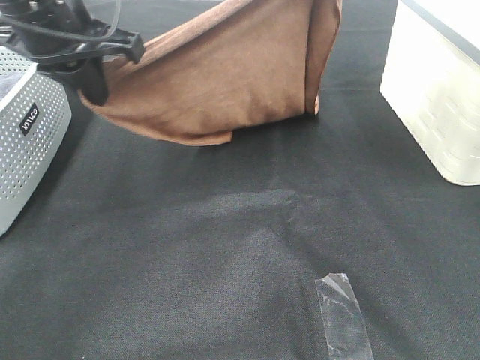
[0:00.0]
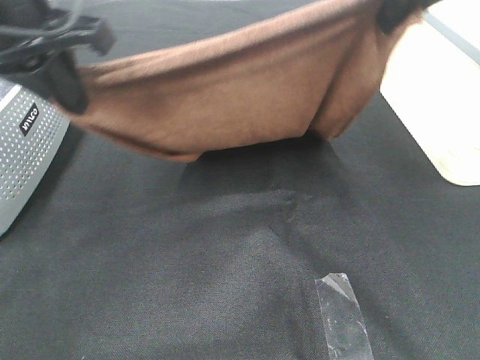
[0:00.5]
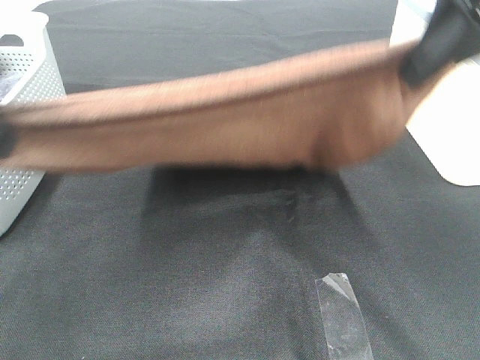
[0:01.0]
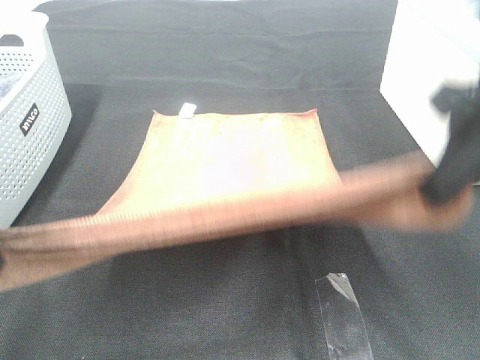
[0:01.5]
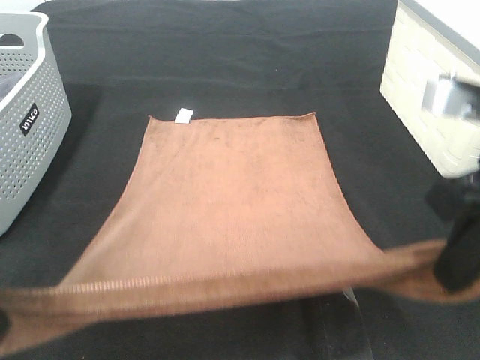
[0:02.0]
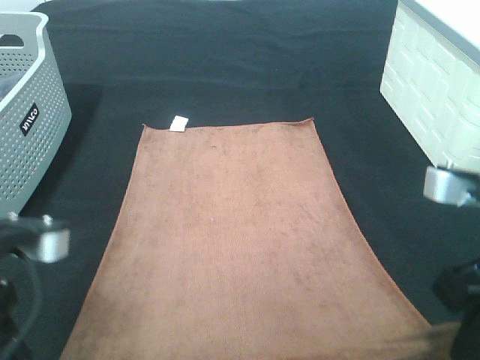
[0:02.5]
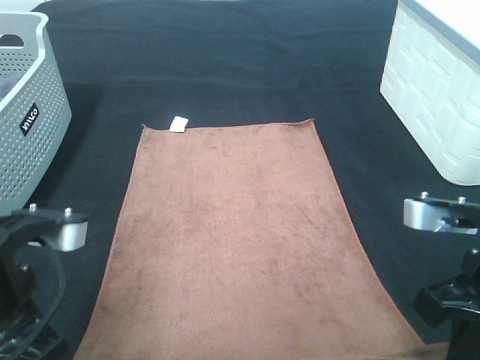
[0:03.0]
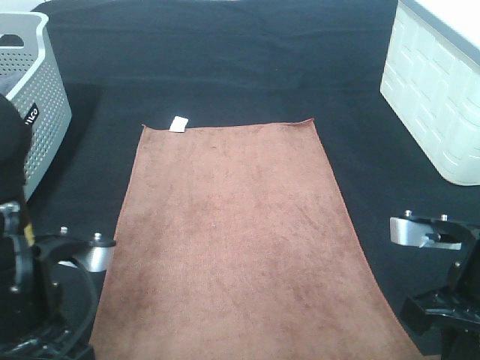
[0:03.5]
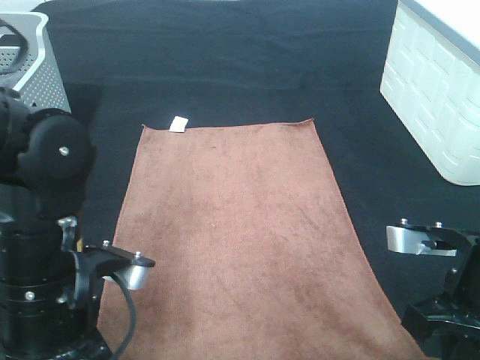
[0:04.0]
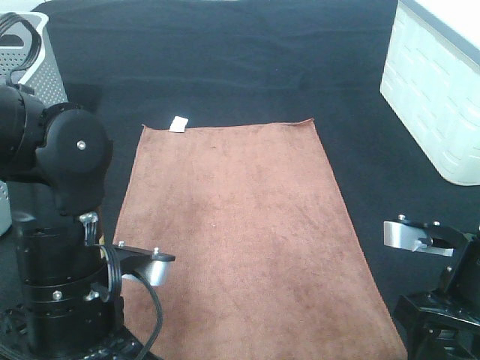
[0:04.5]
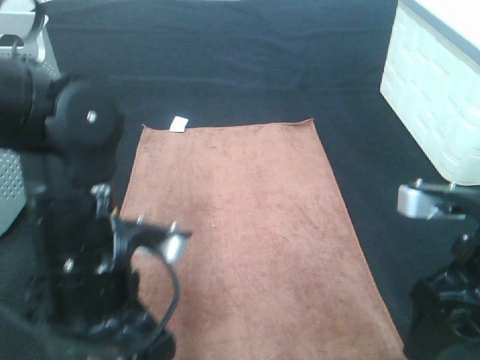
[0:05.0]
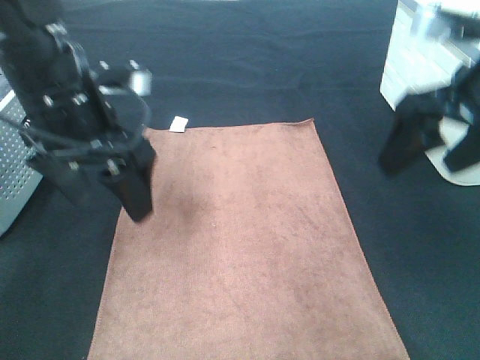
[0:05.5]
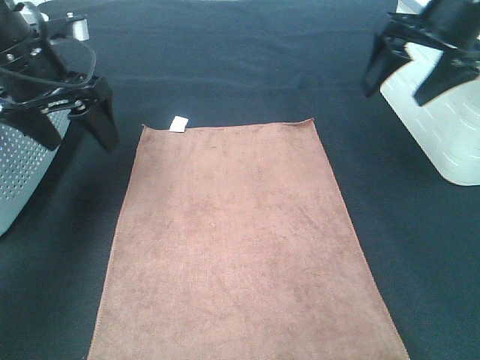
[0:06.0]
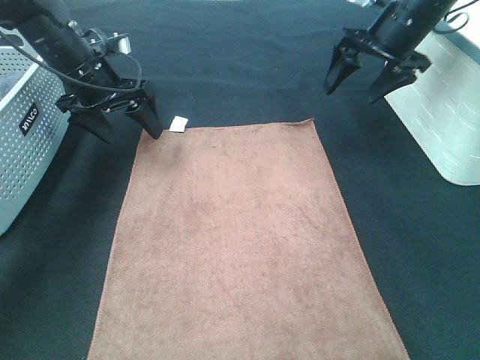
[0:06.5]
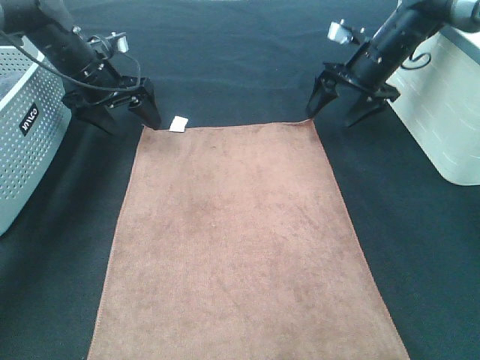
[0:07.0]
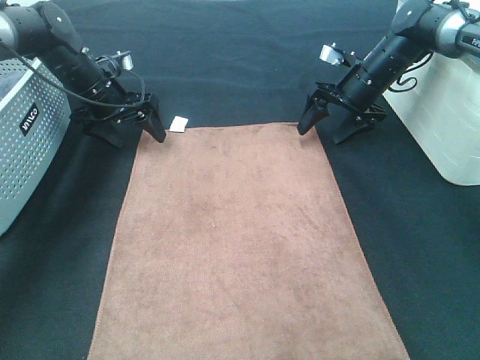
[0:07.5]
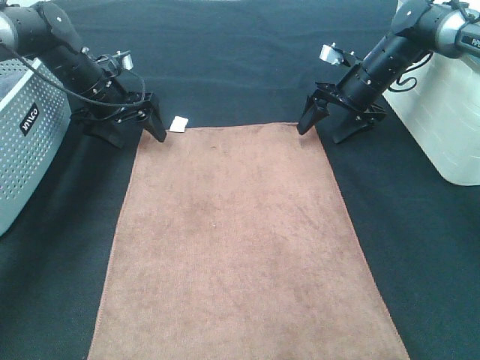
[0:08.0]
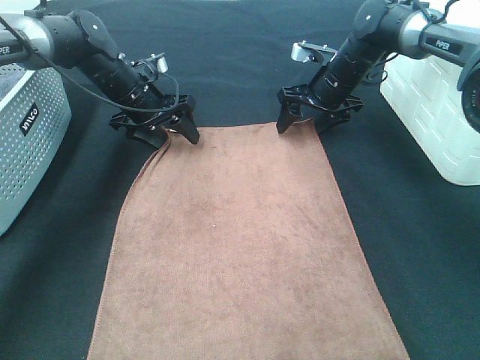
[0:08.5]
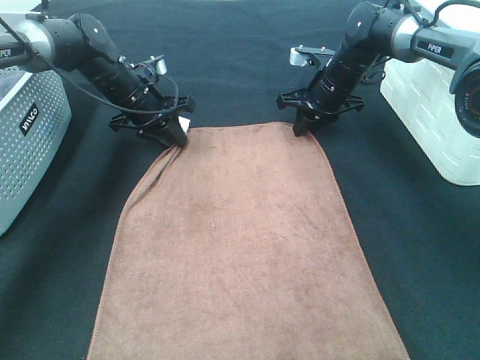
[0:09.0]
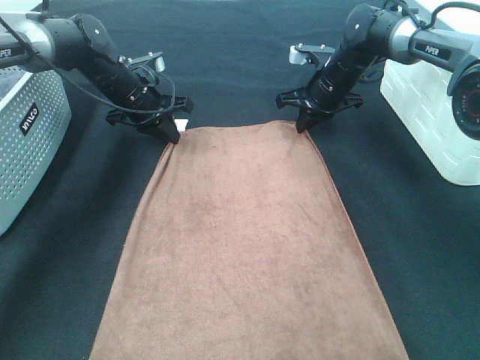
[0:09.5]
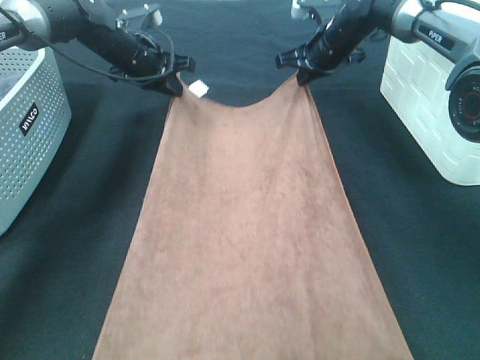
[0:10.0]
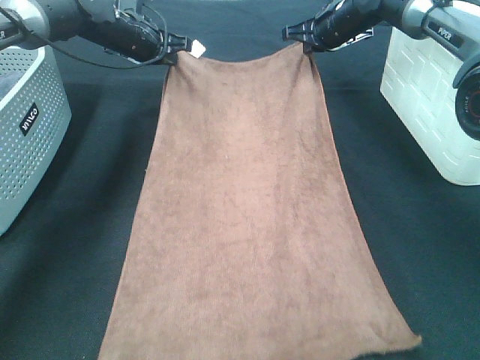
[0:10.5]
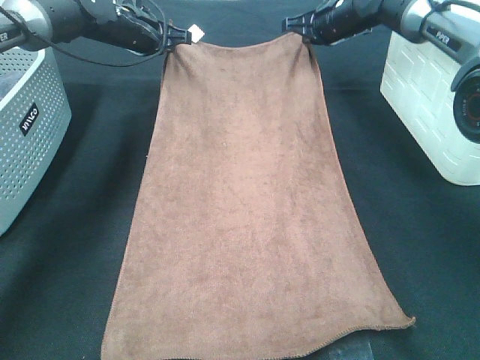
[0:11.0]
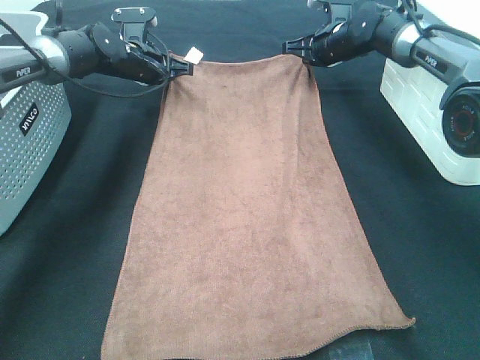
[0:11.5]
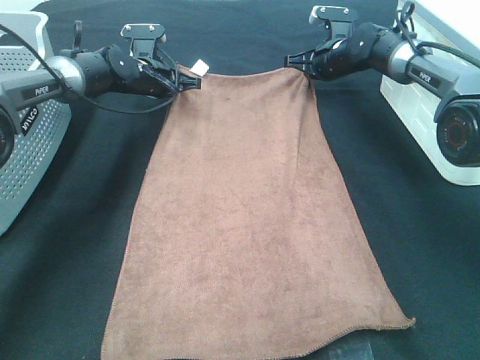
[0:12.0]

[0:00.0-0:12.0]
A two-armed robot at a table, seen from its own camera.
Task of the whole recording: Remove the towel and place it.
Step, 0:00.5 to 0:06.5: Left hand:adjust the brown towel.
Step, 0:00.5 to 0:06.5: Right hand:adjust the brown towel.
0:00.0 to 0:02.0: The left gripper travels backward by roughly 20 cm. Meanwhile the right gripper shifts some 25 cm backward and downward.
0:02.0 to 0:04.0: The right gripper goes roughly 10 cm downward. Meanwhile the left gripper is displaced downward and to the right by about 15 cm.
0:04.0 to 0:06.0: The left gripper heads forward, to the left and upward, covering some 25 cm, and opens its fingers; the right gripper goes some 25 cm forward and upward, and opens.
0:06.0 to 0:08.0: The right gripper goes about 20 cm downward and forward; the left gripper goes approximately 20 cm forward and downward.
0:08.0 to 0:10.0: The left gripper goes some 5 cm to the right, and closes. The right gripper travels to the left and upward by approximately 10 cm, and closes up.
0:10.0 to 0:12.0: Both grippers move downward, roughly 5 cm.

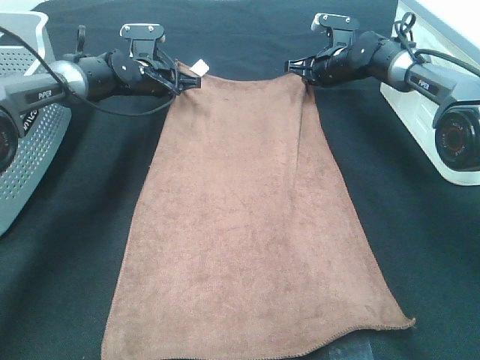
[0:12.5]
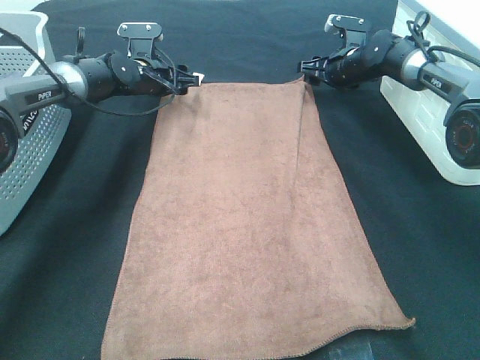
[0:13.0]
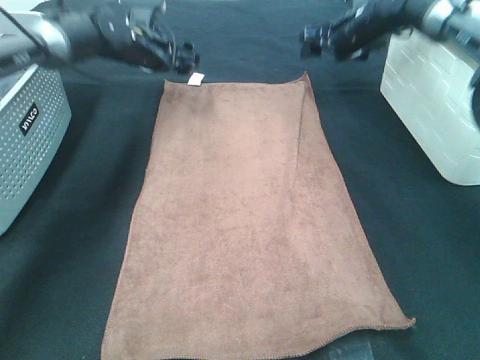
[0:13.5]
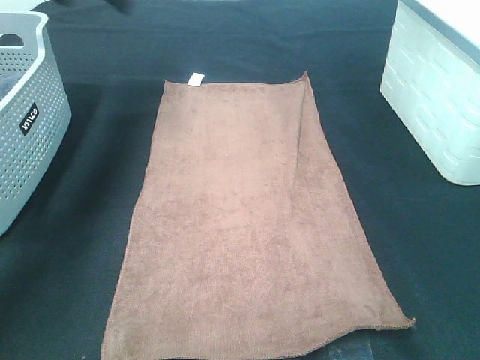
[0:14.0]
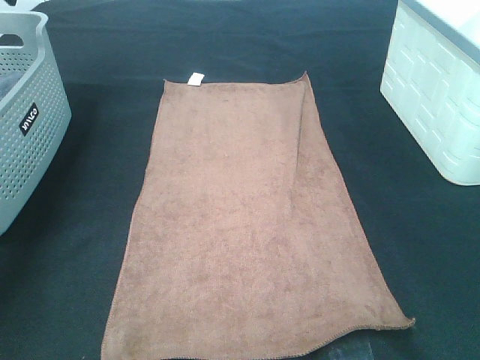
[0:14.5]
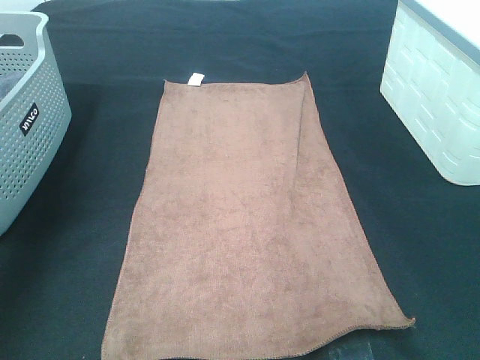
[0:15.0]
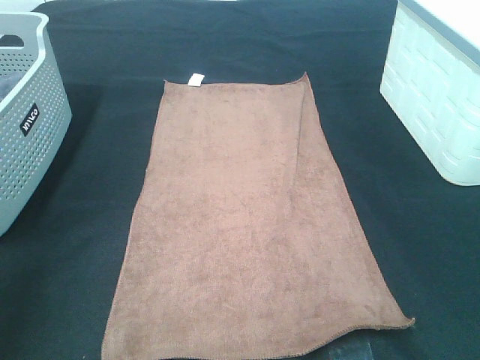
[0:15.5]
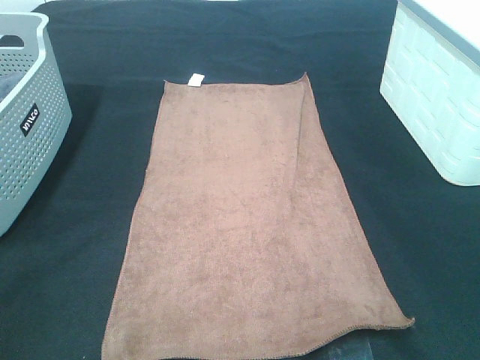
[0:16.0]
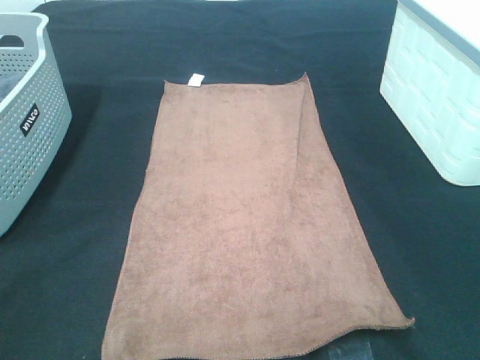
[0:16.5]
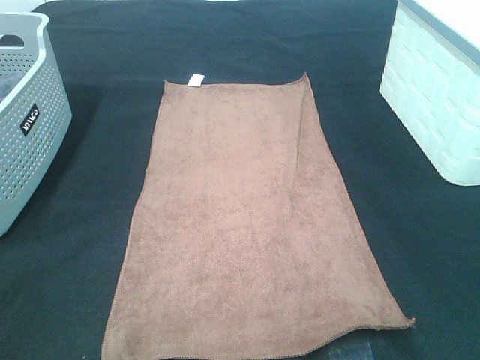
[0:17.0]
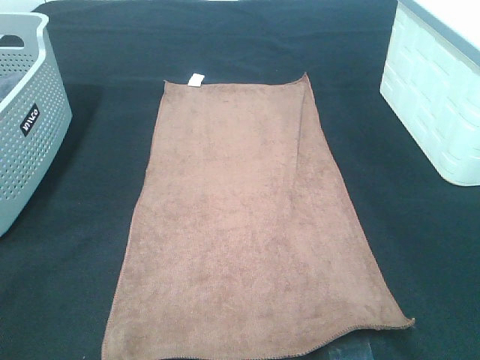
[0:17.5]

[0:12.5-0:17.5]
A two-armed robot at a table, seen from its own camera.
Task of the whole recording: Remove the towel and place it.
0:12.5 to 0:15.0: The left gripper shifts roughly 40 cm upward, backward and to the left, and opens its fingers. Meanwhile the right gripper goes roughly 50 cm backward and upward, and opens.
0:15.0 to 0:17.5: The right gripper is displaced backward and downward by some 25 cm. Meanwhile the left gripper moves backward, about 30 cm.

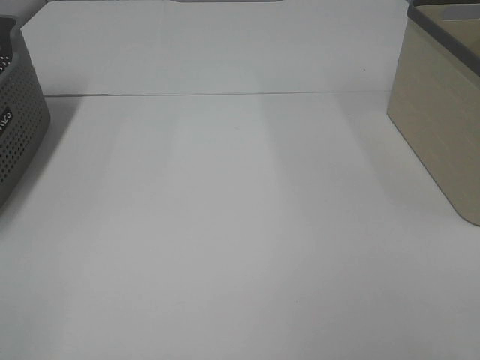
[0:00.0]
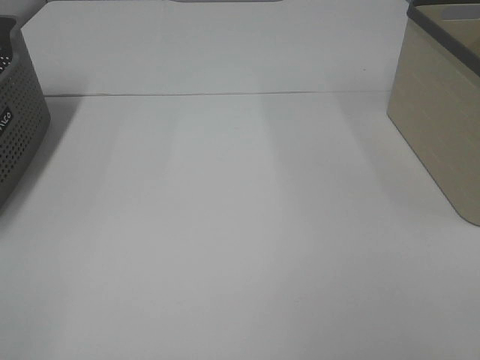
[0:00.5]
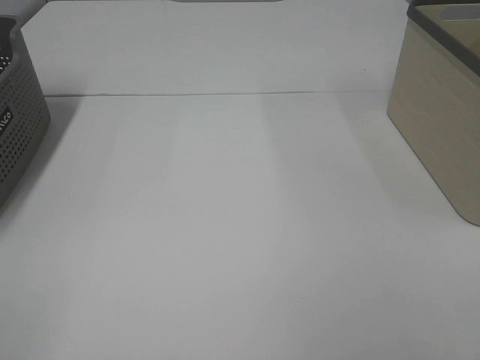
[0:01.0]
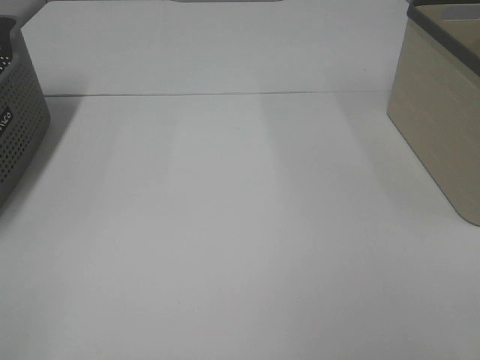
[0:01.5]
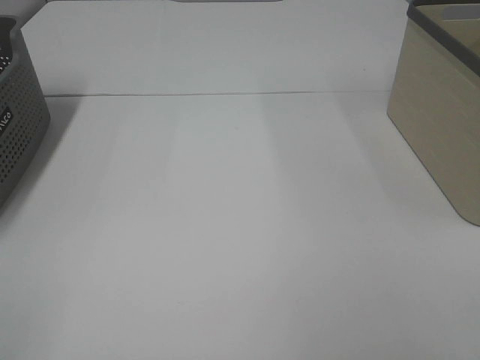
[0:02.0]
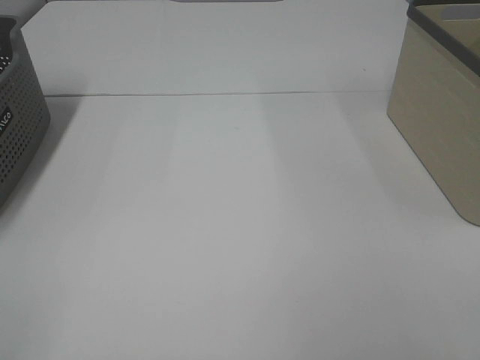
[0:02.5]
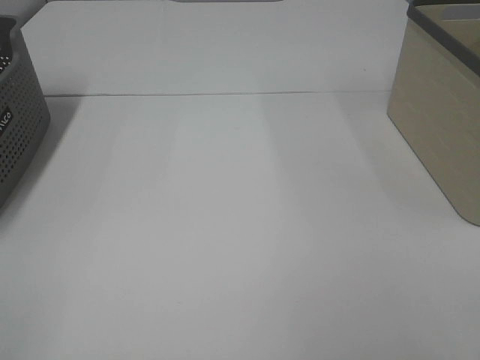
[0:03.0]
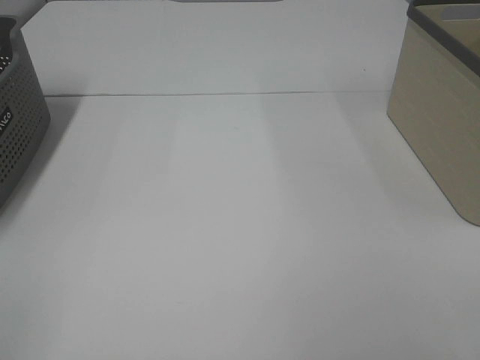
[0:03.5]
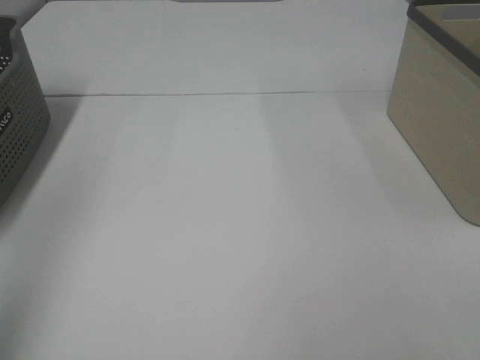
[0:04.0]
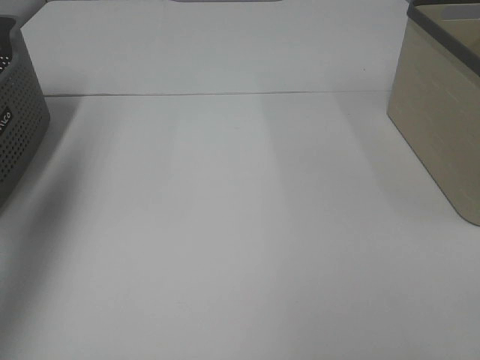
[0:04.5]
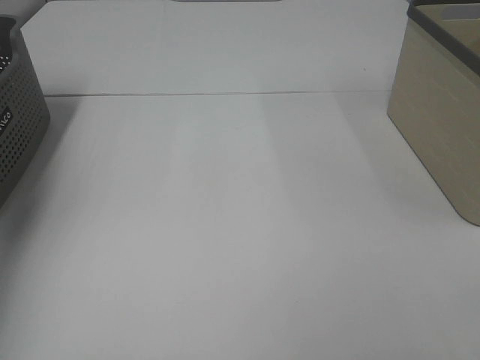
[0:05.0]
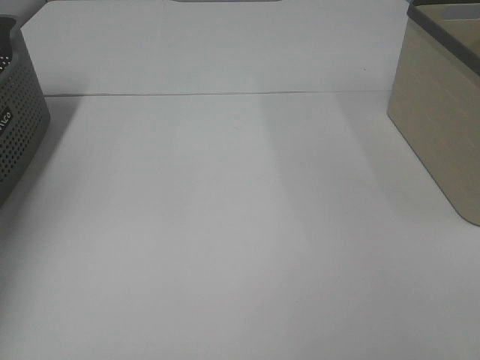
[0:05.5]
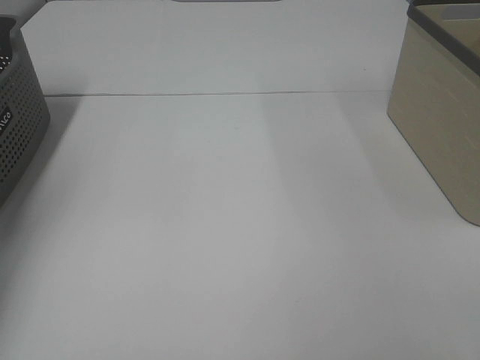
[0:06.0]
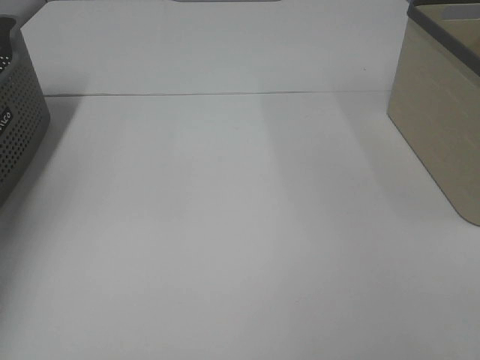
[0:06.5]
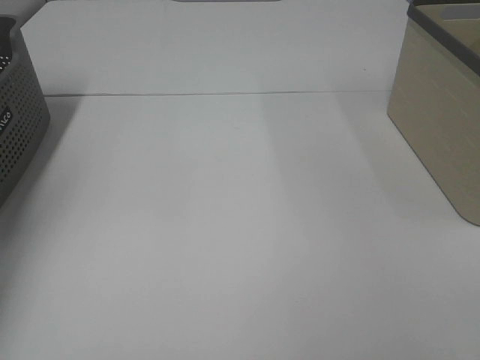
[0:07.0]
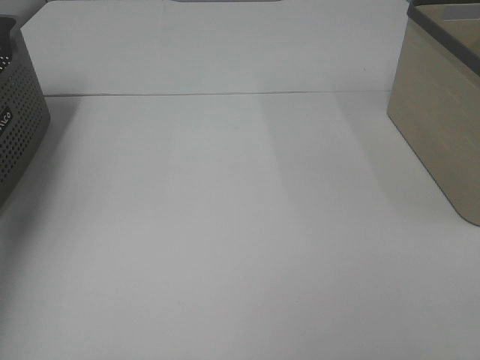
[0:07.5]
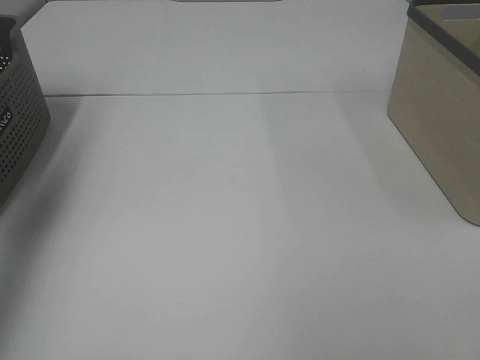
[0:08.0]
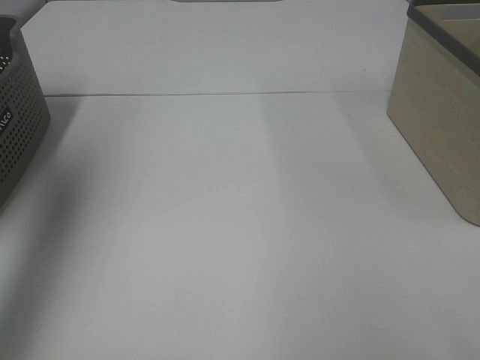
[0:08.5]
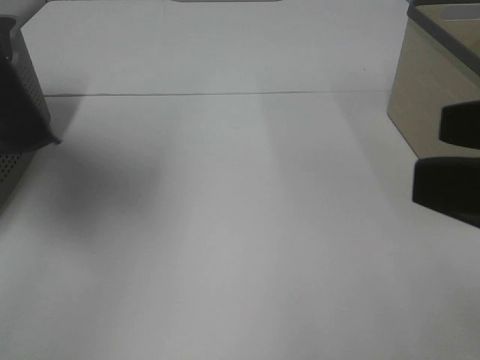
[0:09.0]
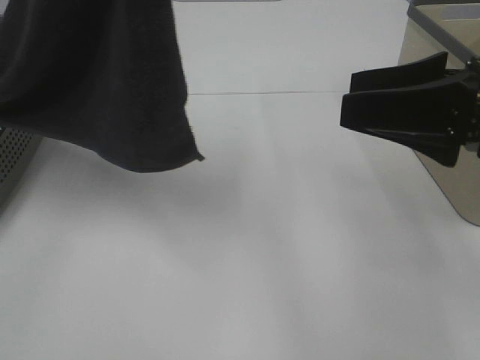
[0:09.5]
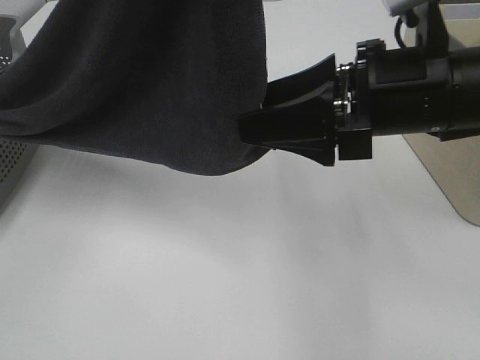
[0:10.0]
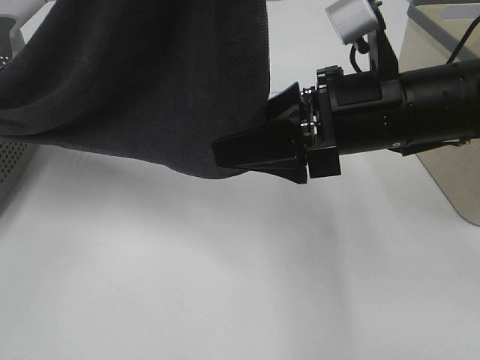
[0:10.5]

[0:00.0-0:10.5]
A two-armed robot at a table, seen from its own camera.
Task of the whole recording: Remove the towel and place it.
0:00.0 to 0:02.0: Both grippers stay about where they are.
0:02.0 to 0:04.0: The left gripper goes approximately 15 cm upward and forward.
0:04.0 to 0:06.5: The left gripper goes approximately 40 cm forward and downward, and closes up.
0:06.5 to 0:08.5: The left gripper heads upward and backward, covering about 35 cm.
0:08.5 to 0:10.5: The left gripper heads to the right, covering some 20 cm. Meanwhile the right gripper shifts about 25 cm forward and to the left.
